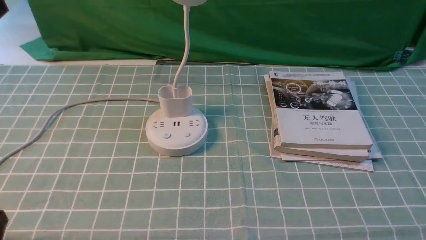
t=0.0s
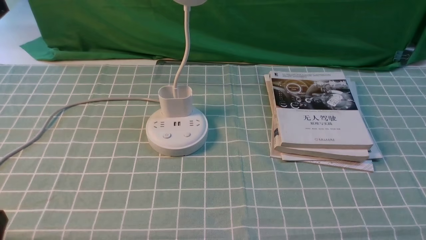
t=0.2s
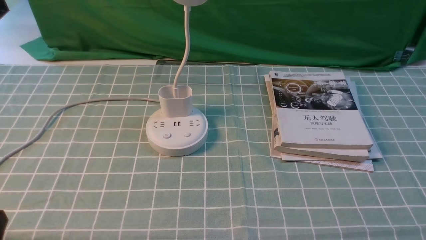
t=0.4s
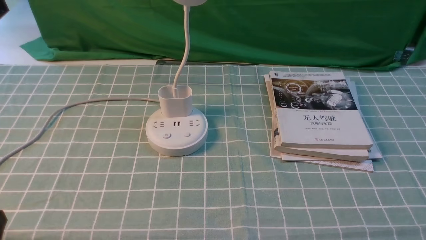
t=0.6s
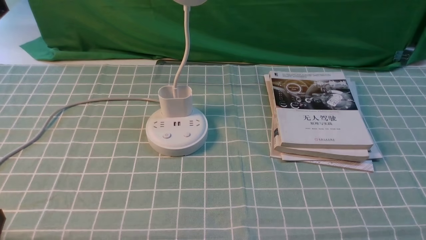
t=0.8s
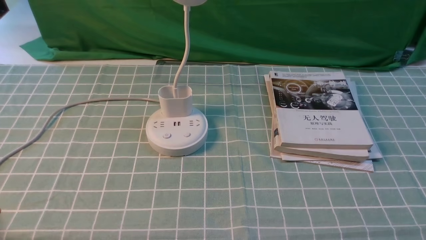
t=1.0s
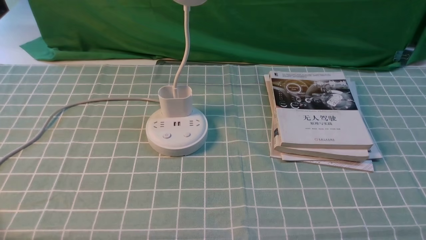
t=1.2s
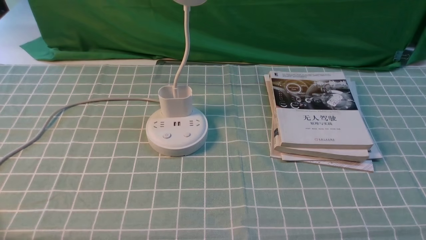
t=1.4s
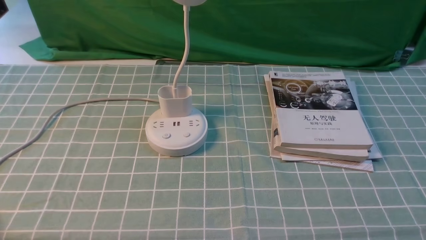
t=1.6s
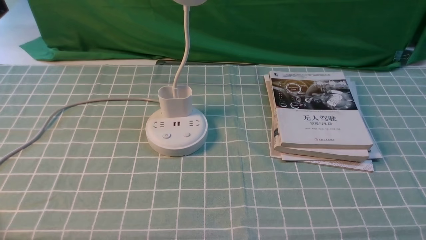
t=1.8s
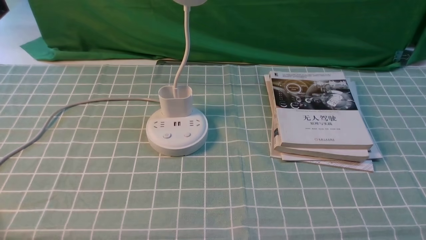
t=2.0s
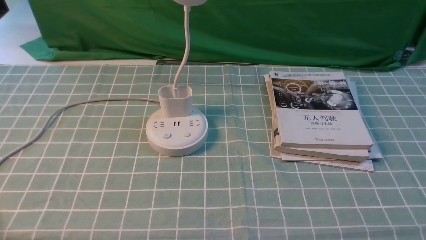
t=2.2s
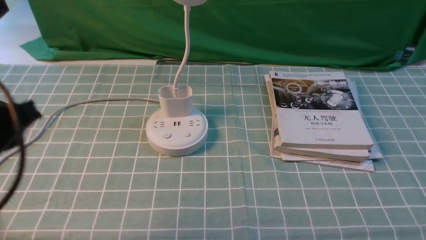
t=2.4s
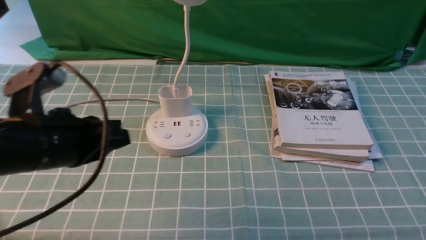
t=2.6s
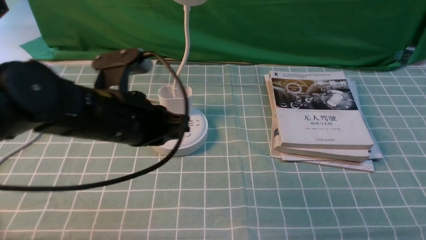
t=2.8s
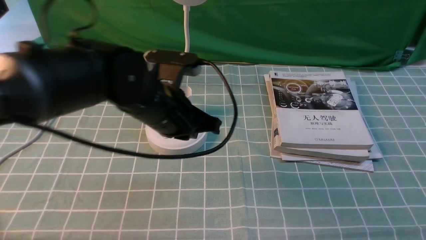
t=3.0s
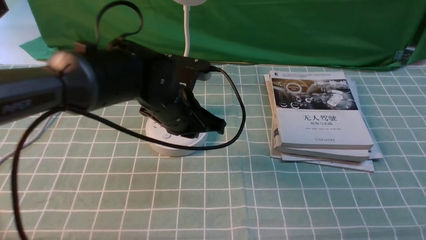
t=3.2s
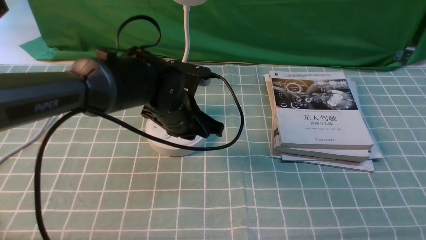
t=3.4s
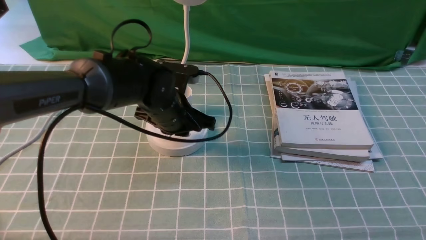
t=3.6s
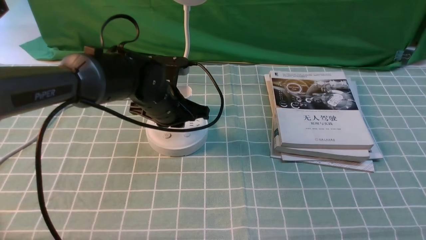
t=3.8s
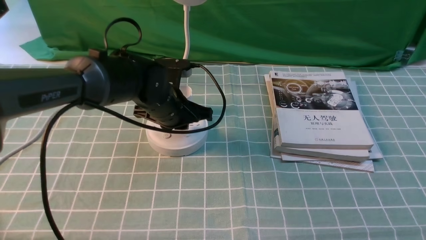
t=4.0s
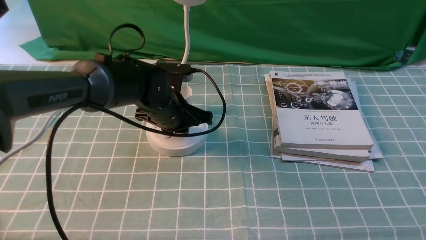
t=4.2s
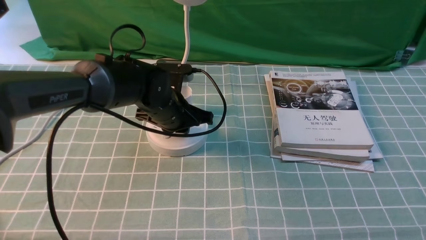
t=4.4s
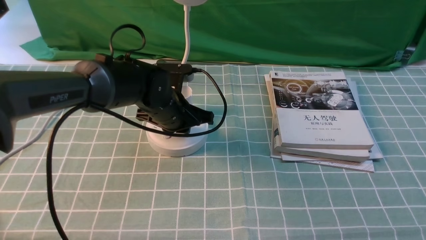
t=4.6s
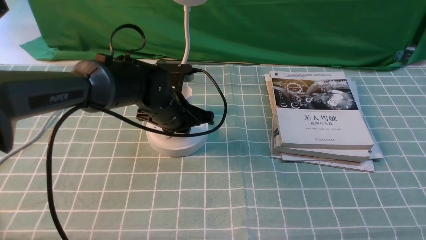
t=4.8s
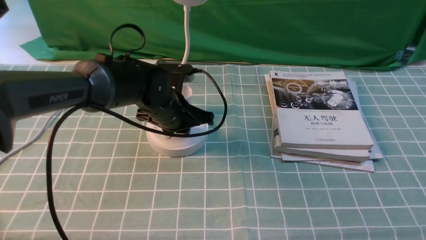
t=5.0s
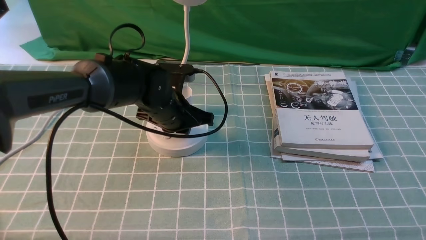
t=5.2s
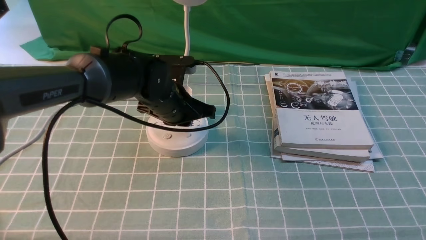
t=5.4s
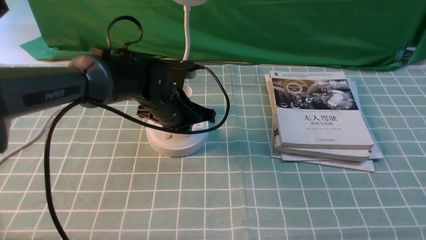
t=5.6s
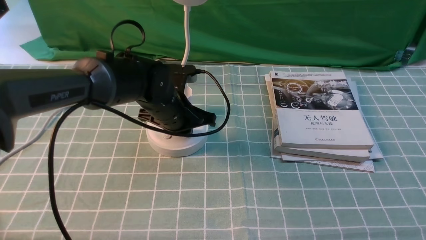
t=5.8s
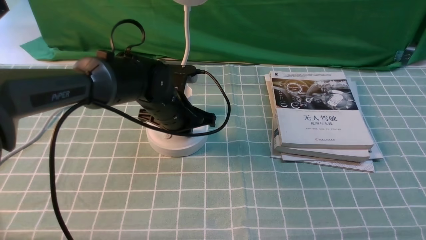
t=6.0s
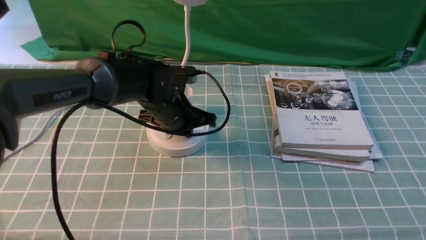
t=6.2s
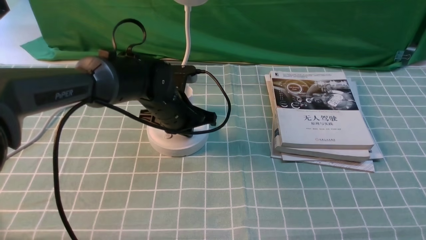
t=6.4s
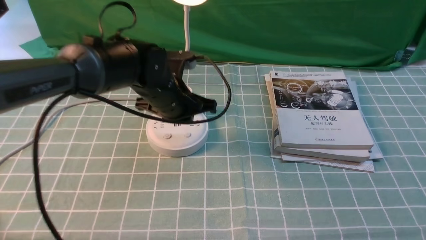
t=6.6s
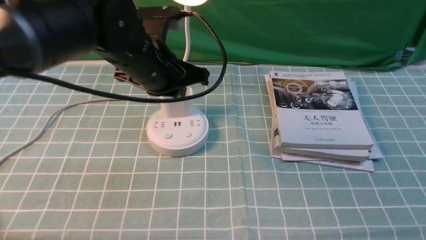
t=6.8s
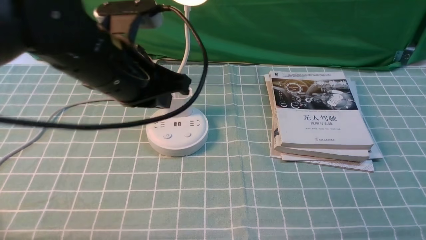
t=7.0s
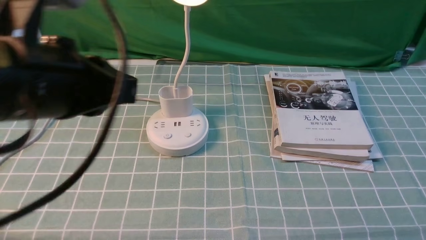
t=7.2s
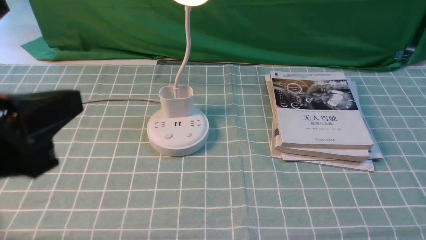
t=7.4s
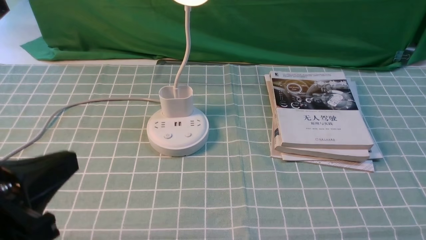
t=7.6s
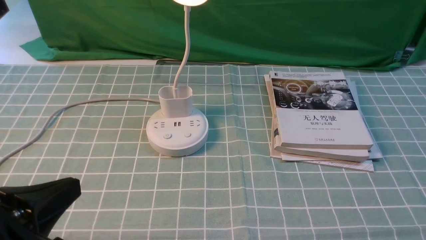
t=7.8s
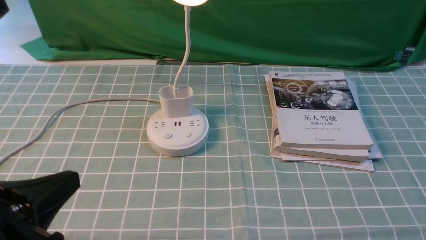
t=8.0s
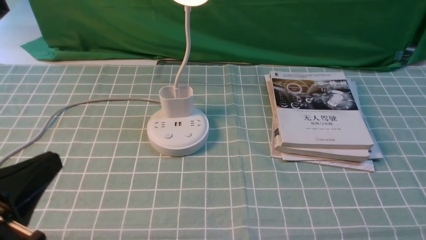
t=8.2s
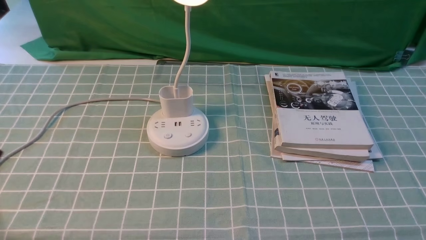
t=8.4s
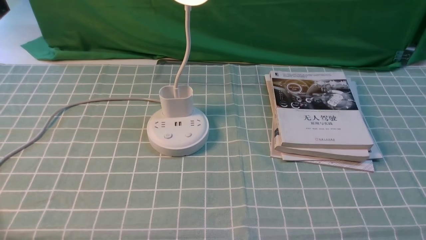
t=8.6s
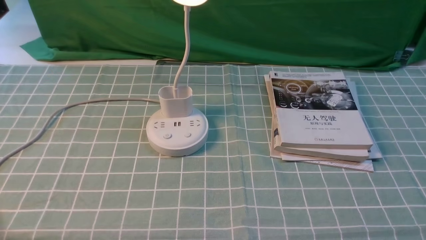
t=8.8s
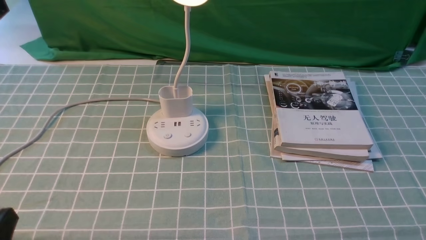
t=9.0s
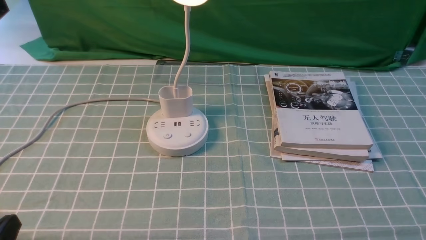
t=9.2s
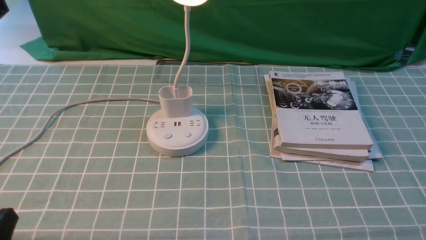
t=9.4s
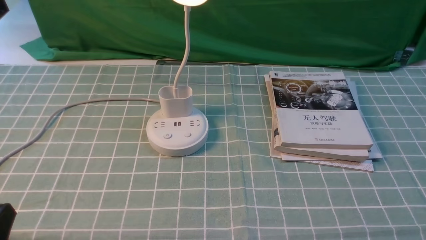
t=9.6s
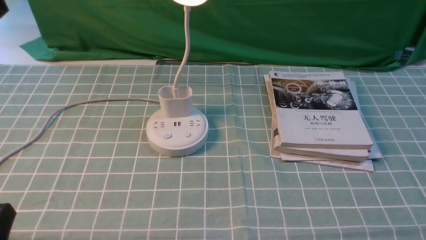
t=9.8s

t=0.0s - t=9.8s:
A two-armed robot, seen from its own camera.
Step, t=0.0s - t=6.6s: use the left arm to press the button switch on the lamp holder.
t=1.4s - t=2.8s: The left gripper is displaced forward and to the right by roughly 25 cm.
t=2.8s - t=4.2s: The left gripper heads forward and downward, covering approximately 15 cm.
t=4.2s - t=5.6s: Both grippers stay put.
t=5.6s - t=7.0s: The left gripper travels upward and backward by roughly 20 cm.
t=7.0s - t=8.4s: The left gripper goes some 25 cm backward, to the left and downward.
t=8.4s - t=9.8s: The left gripper shifts about 5 cm downward.

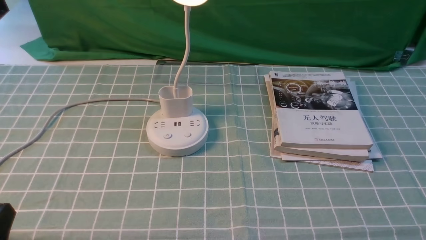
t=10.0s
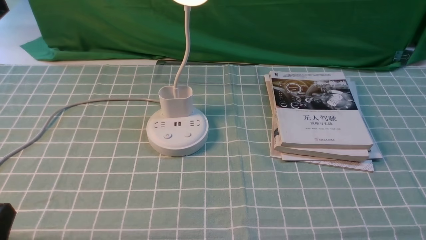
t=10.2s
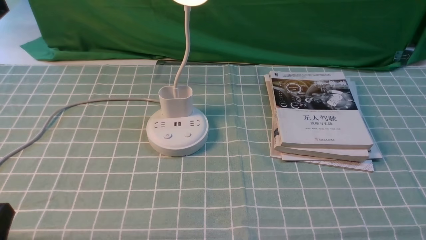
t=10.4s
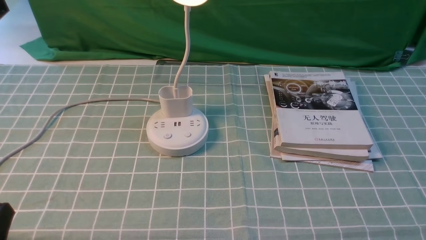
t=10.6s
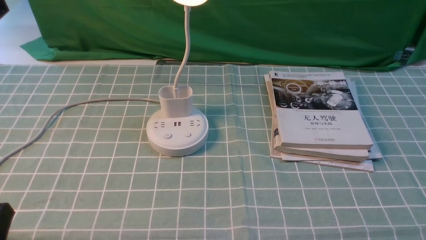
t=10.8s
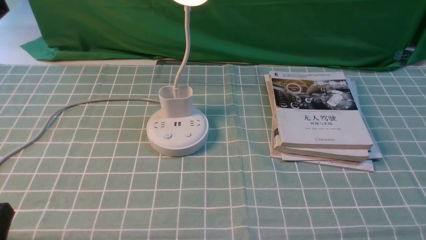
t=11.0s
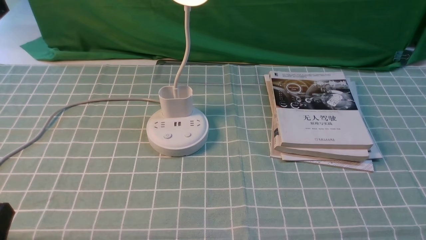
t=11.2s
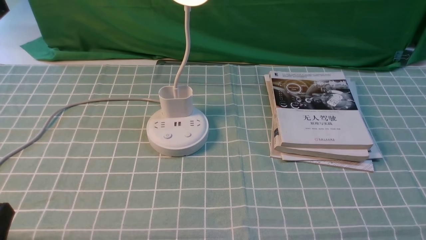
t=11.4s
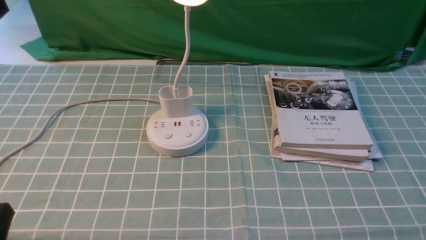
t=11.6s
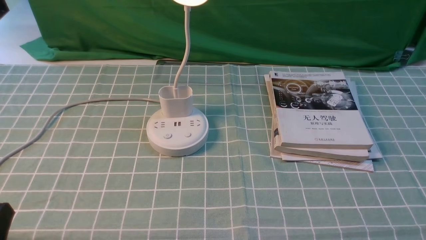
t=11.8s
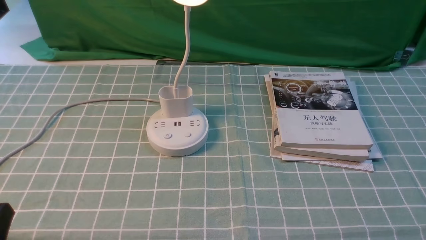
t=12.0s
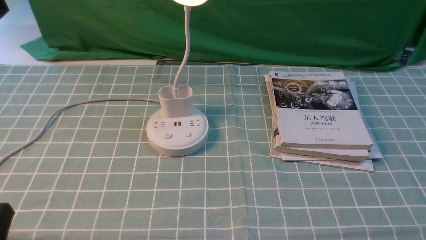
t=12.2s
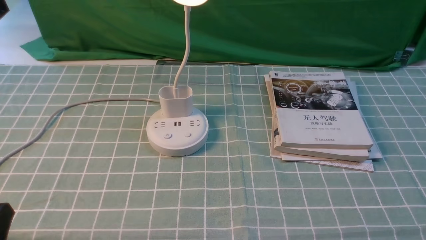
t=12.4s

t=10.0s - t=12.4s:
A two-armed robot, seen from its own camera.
t=10.0s - t=12.4s: Both grippers stay put.

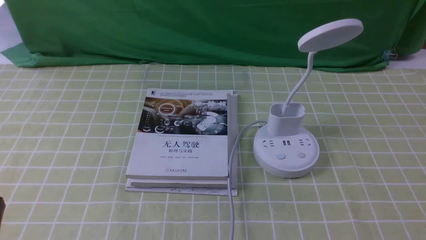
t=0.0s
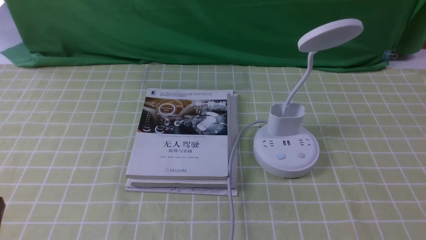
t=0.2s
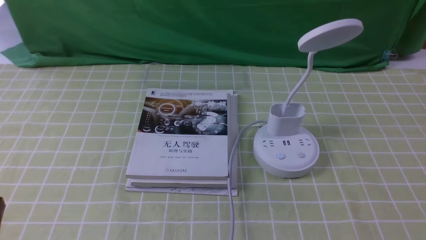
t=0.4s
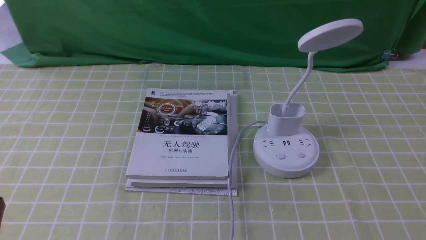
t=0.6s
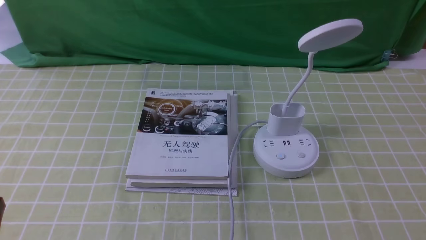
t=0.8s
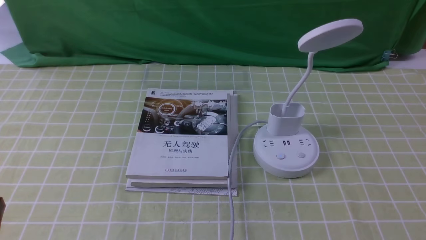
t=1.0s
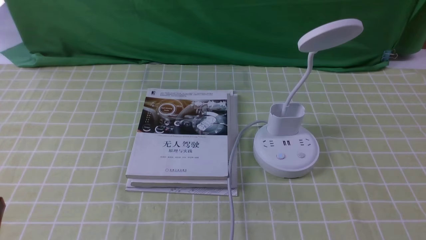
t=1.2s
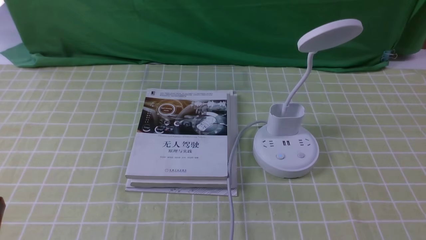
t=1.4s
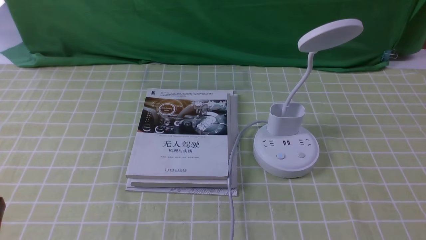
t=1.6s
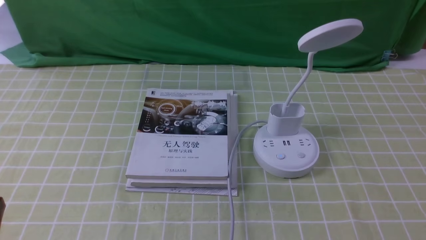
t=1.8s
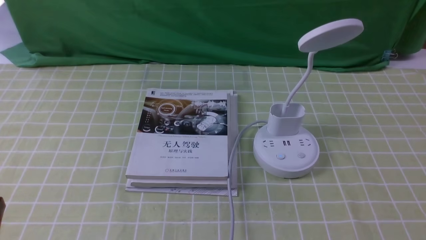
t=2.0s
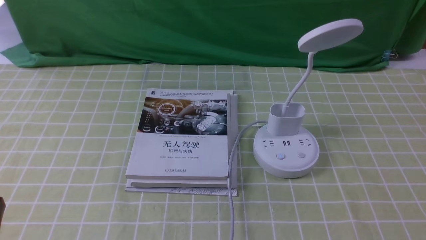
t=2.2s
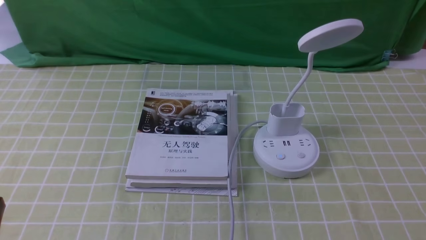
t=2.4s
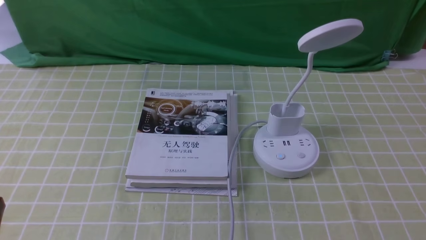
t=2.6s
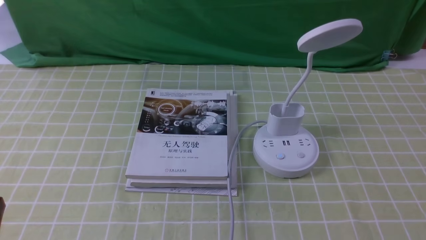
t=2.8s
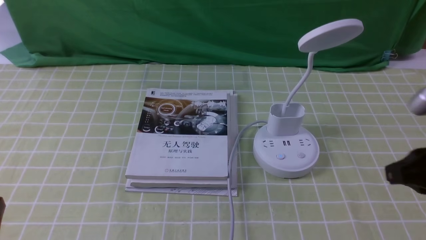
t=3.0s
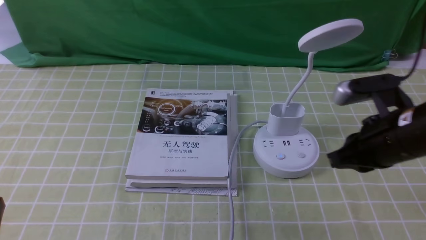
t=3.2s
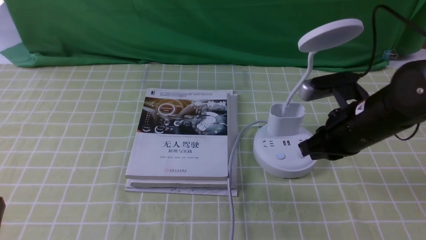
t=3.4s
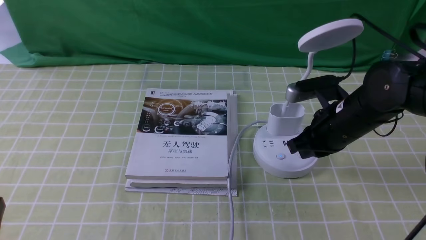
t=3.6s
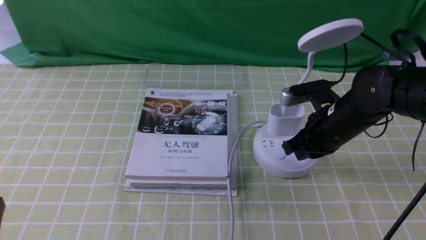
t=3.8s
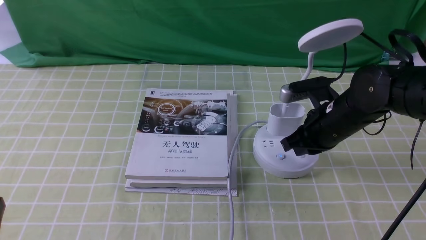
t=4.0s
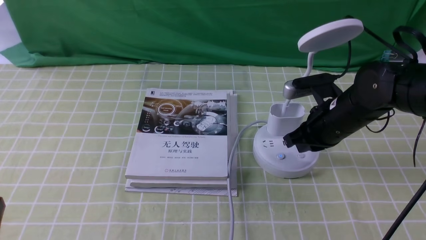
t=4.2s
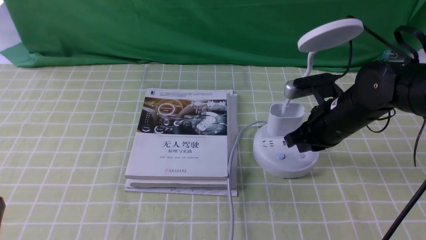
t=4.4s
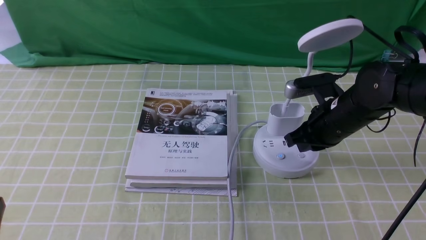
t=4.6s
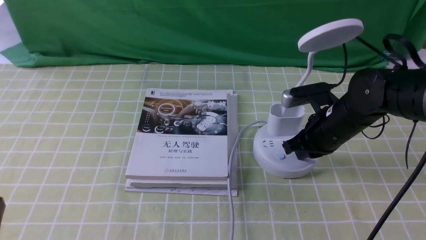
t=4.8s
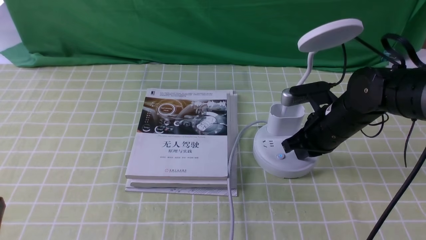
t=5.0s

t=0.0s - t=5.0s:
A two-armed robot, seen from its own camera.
t=0.0s - t=1.6s: Both grippers stay put.
t=1.6s - t=3.4s: The right gripper shifts roughly 25 cm forward and to the left, and closes up.
t=3.4s - t=5.0s: The right gripper travels downward and forward by about 5 cm.
